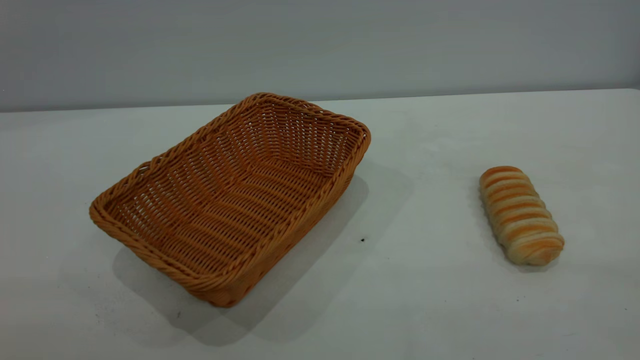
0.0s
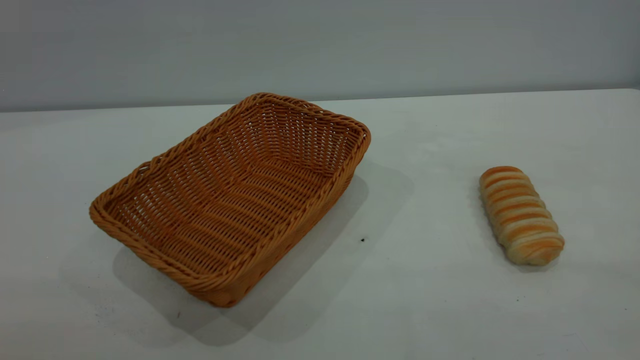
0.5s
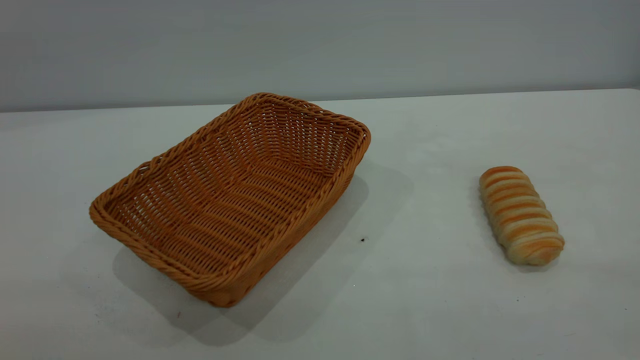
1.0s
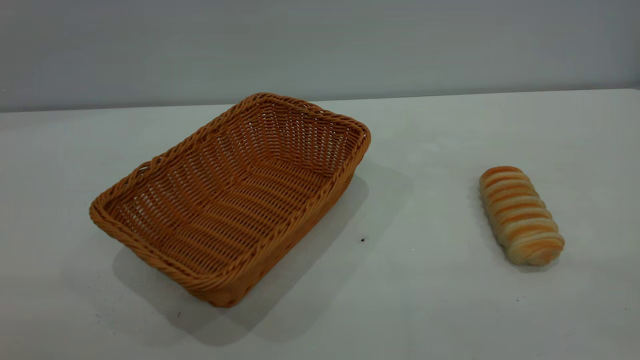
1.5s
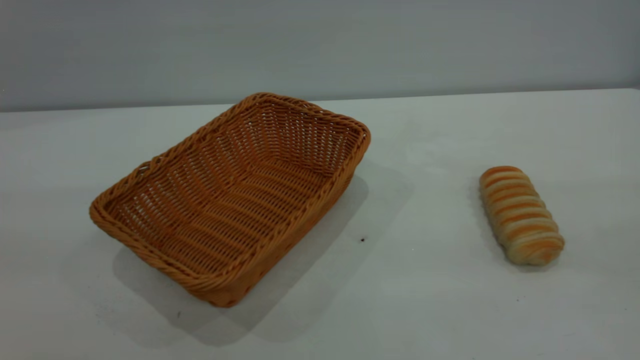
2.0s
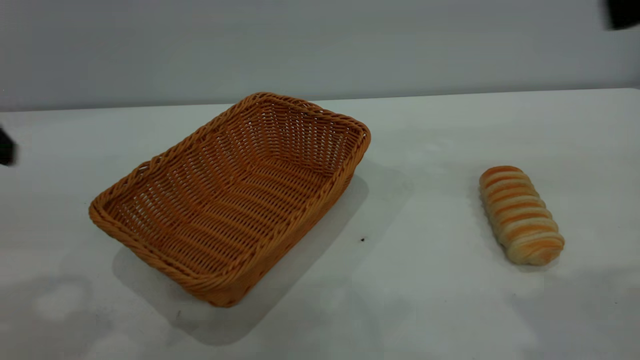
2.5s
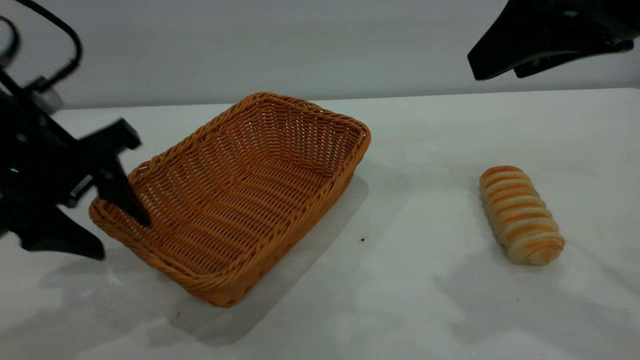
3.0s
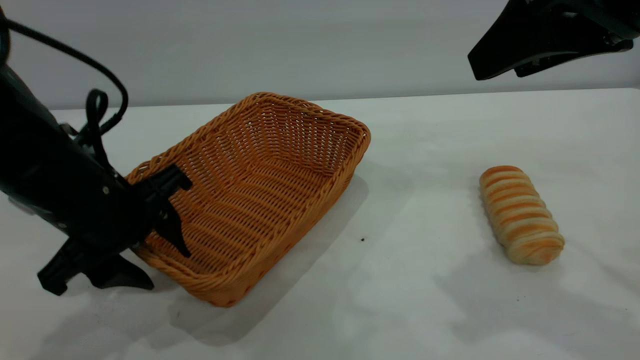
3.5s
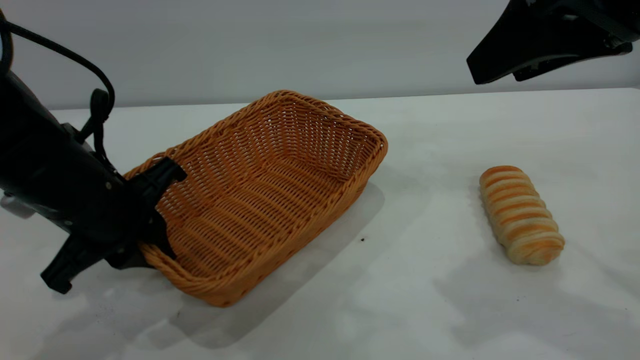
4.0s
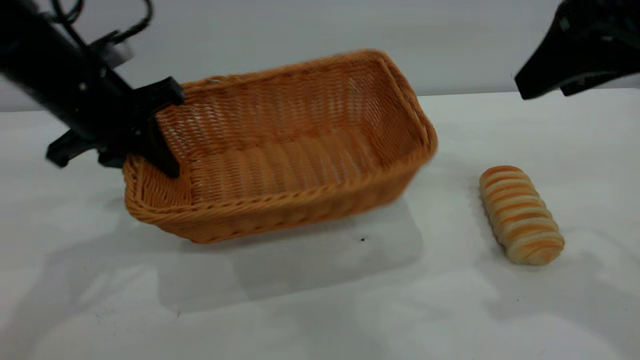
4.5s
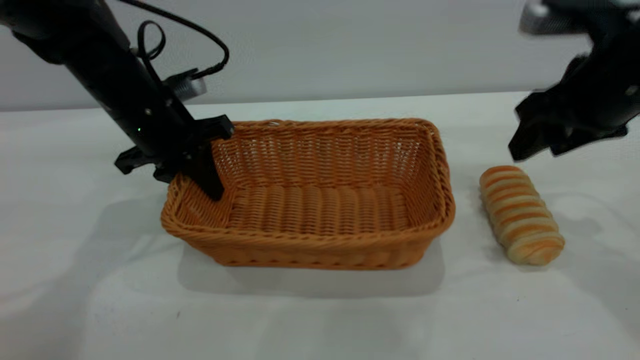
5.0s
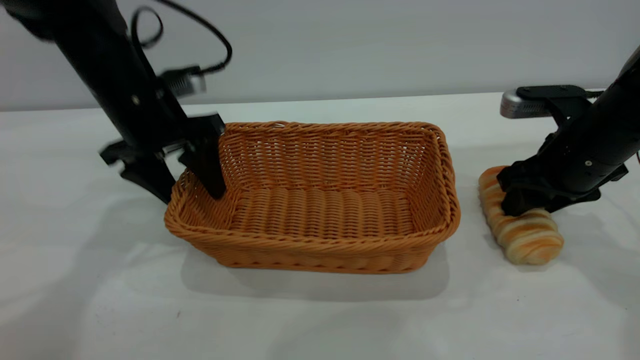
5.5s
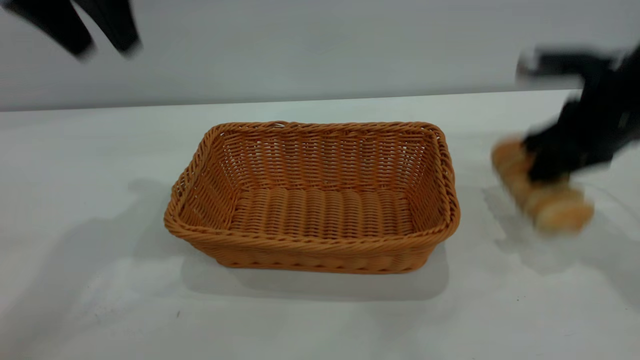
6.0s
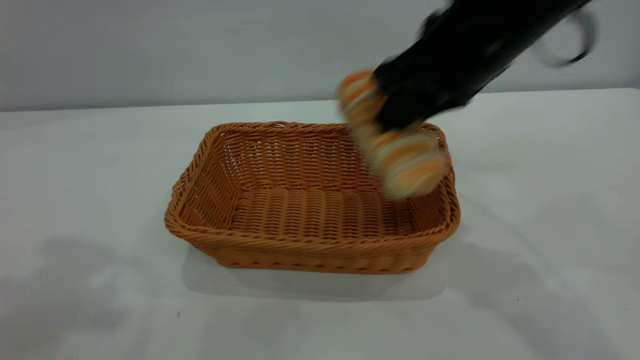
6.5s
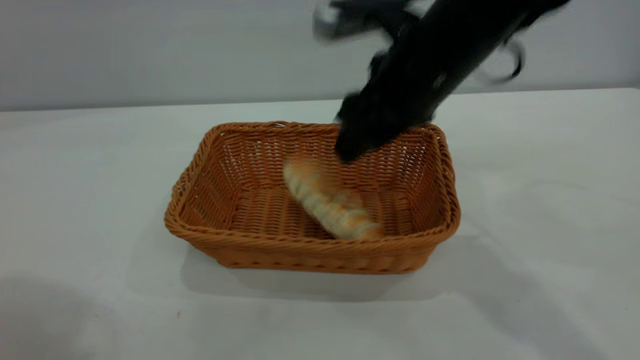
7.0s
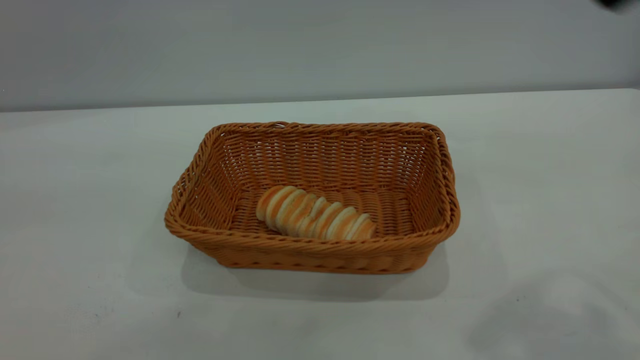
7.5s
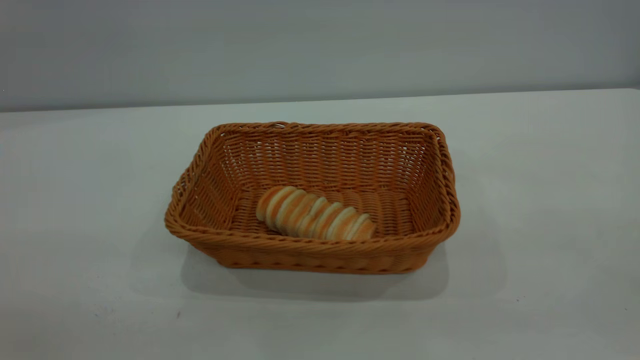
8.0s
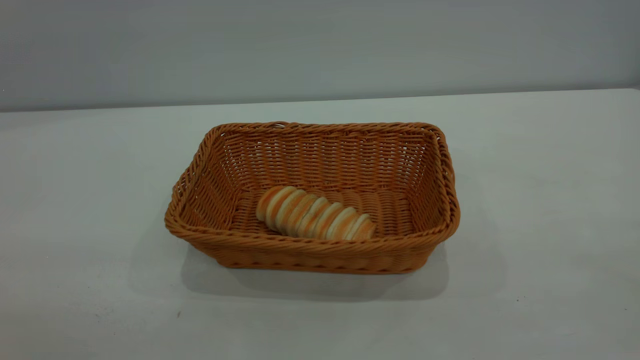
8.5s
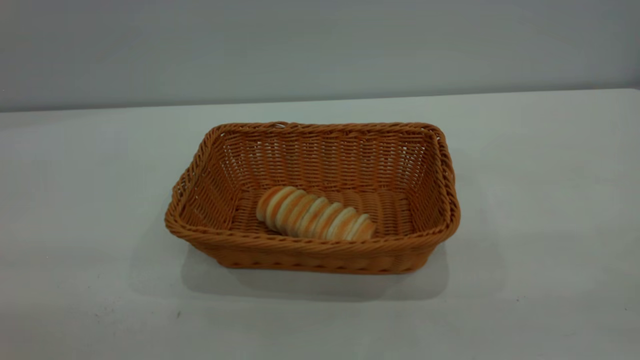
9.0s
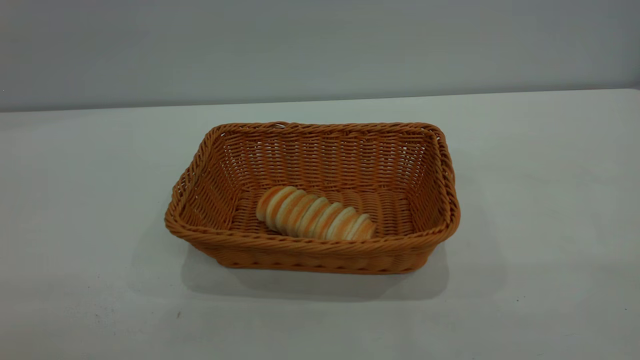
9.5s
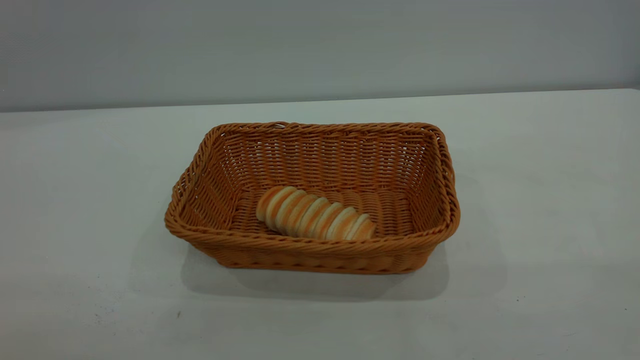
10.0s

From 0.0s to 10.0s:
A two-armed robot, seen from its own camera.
Task of the whole recording: One hand grasps the yellow basket and places it in the middle of the table, while the other hand picks up the long bread and puts it into the yellow basket.
Step, from 0.0s to 5.5s: Move the basket to the center of view.
Step, from 6.5s to 7.0s: place the bread into the basket.
From 2.0s to 4.0s: The left gripper goes roughly 30 cm downward and forward, and closes; the right gripper travels forward and to the left by approximately 20 cm.
From 4.0s to 6.0s: The right gripper heads downward, forward and to the right, covering approximately 20 cm, and closes its fingers. The left gripper moves up and down over approximately 20 cm, changing direction 2 times, and opens.
From 6.0s to 8.0s: The right gripper is displaced backward and upward by about 30 cm, and opens, while the left gripper moves backward, about 30 cm.

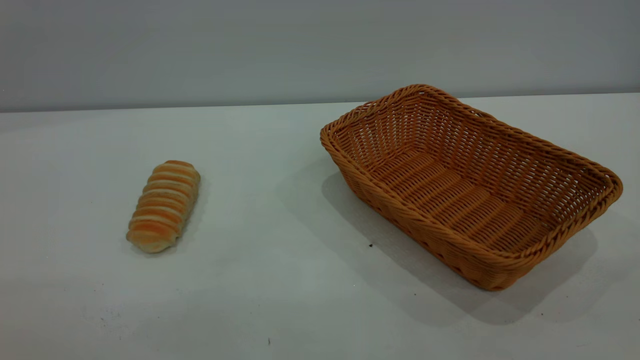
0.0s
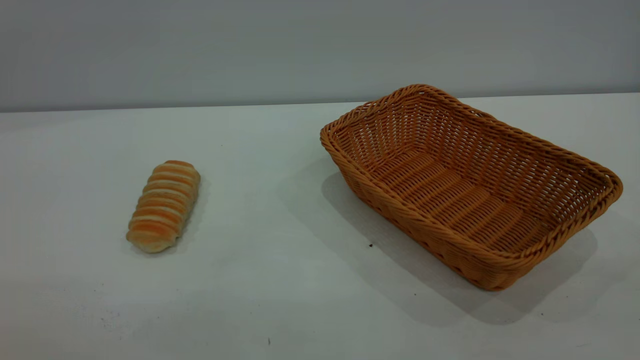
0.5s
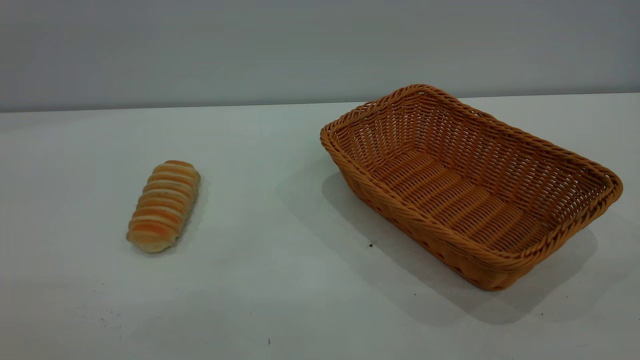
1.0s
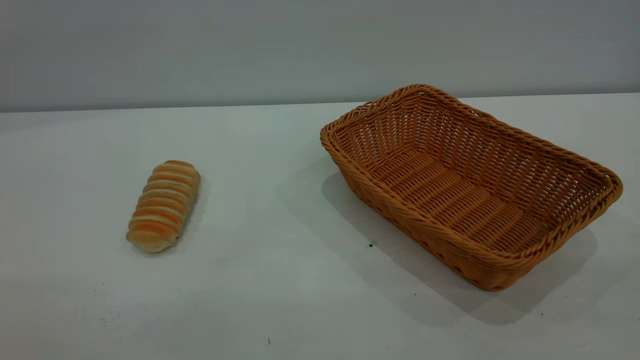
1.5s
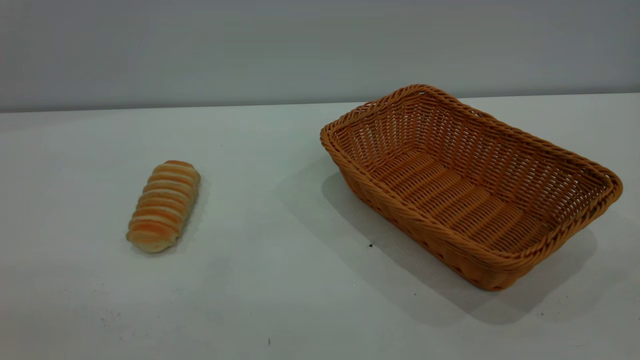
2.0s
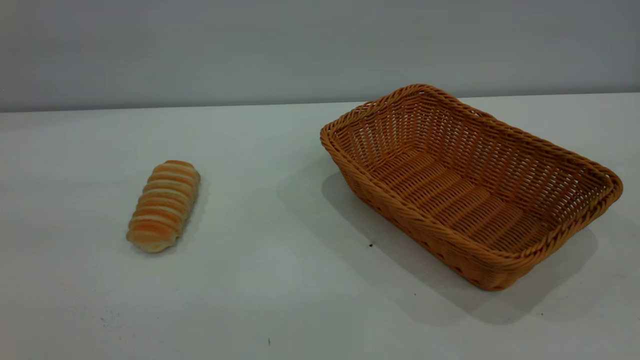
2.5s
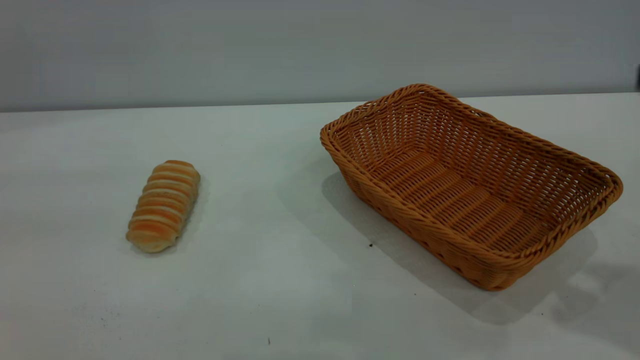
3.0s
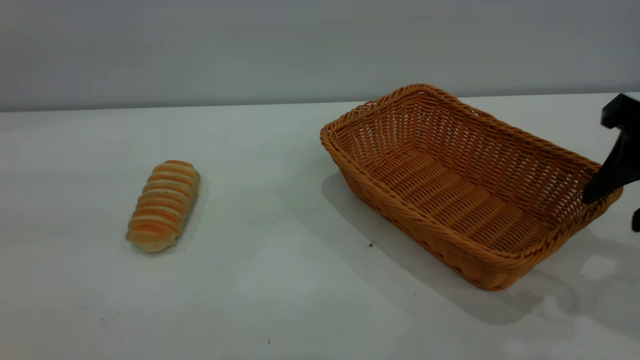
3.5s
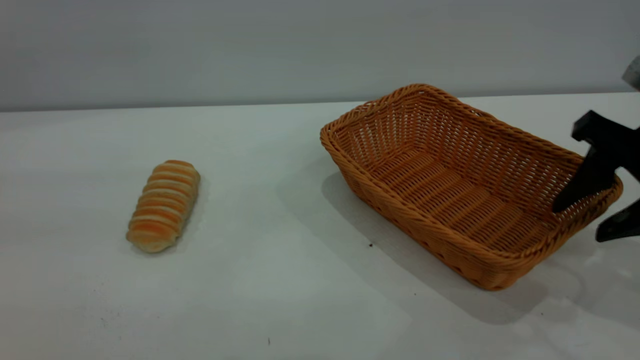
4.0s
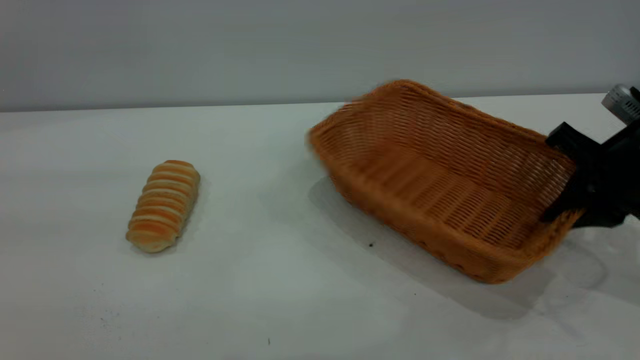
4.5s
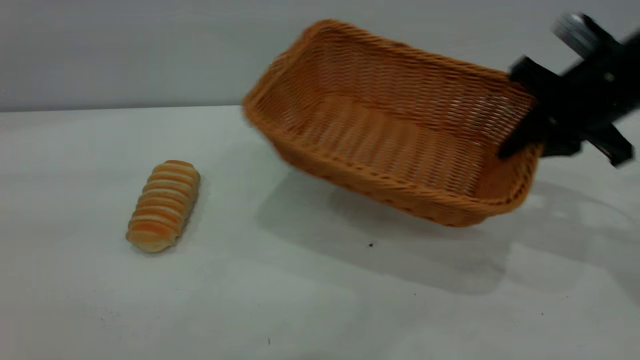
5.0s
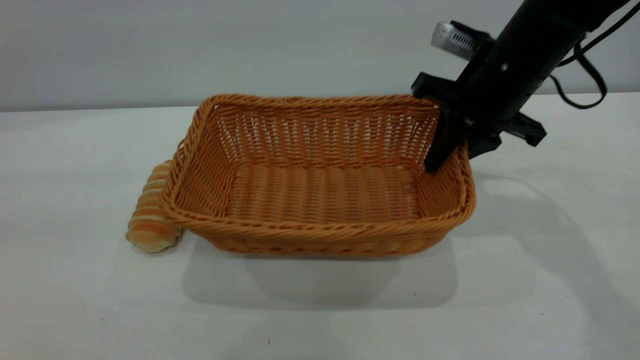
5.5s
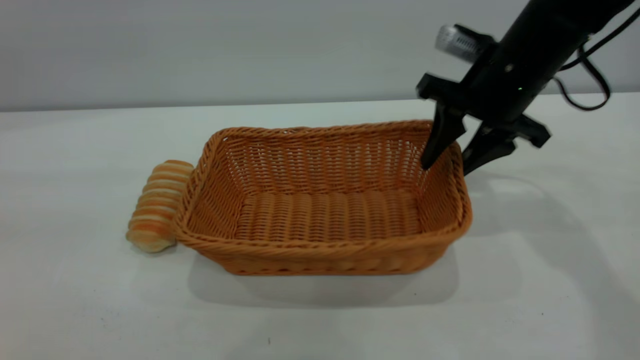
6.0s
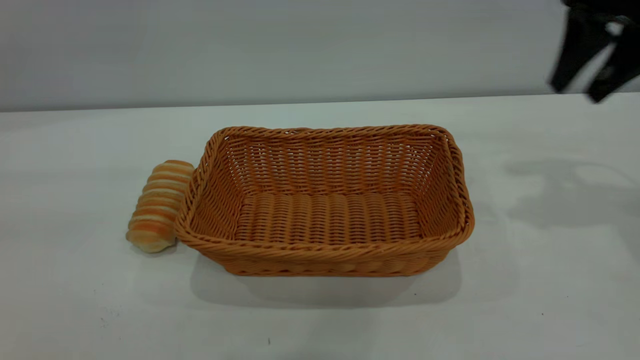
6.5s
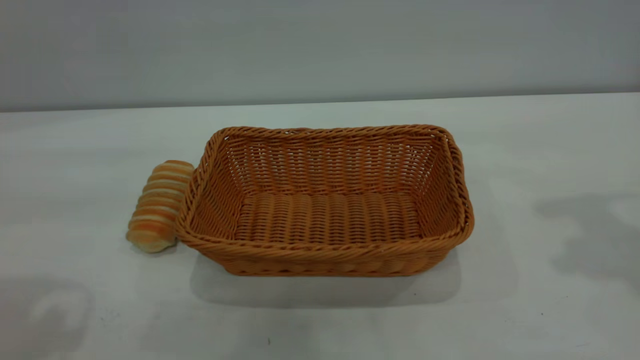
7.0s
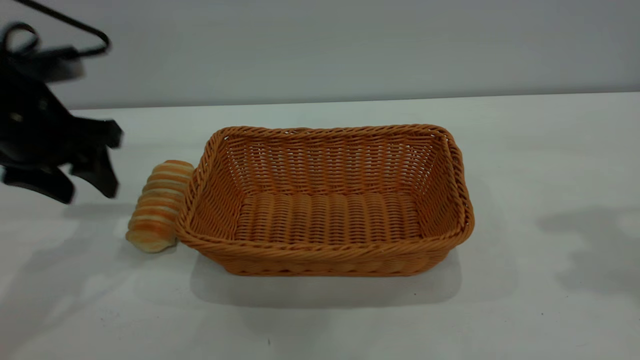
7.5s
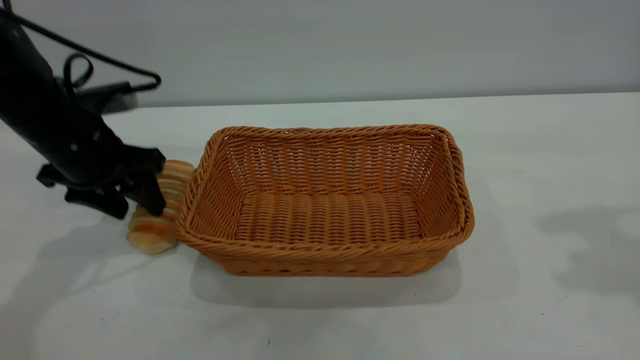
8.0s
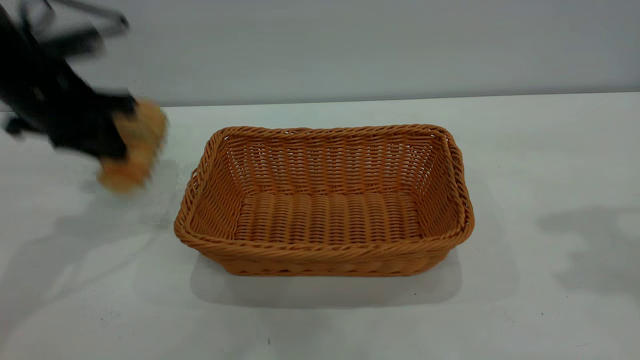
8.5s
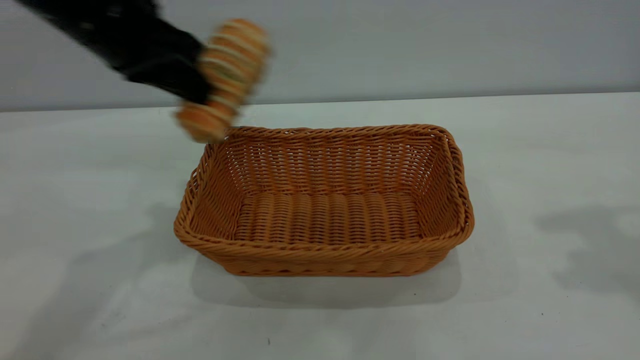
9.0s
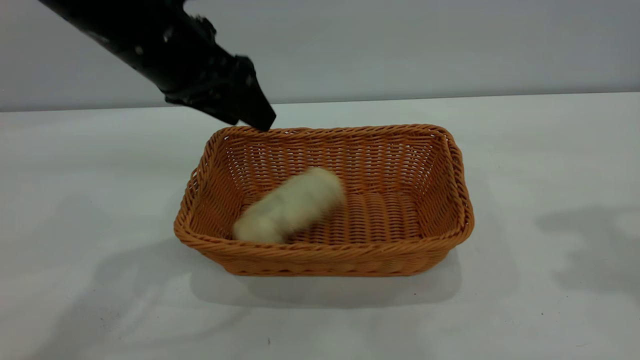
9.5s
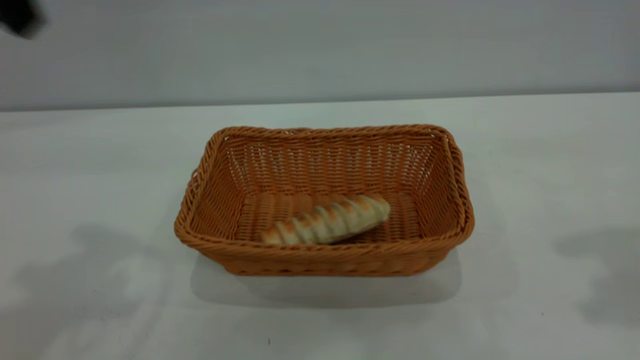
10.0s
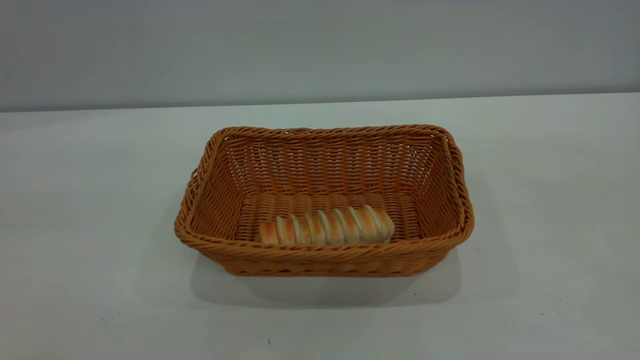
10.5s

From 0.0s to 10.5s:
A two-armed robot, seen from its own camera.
Task of the whole recording: One hand grasps the yellow basket and places it in the middle of the table, while the other hand picks up the long bread and puts it into the yellow basket.
Step, from 0.0s to 6.0s: Move the basket to the center of view.
Step, from 9.0s to 9.5s: place the bread into the basket.
From 2.0s to 4.0s: The right gripper goes some 35 cm forward and downward.
From 4.0s to 6.5s: The right gripper shifts about 15 cm forward and upward, and closes, then opens again.
From 6.5s to 8.5s: The left gripper travels forward and downward by some 30 cm, and closes its fingers. Meanwhile the right gripper moves upward and backward, about 15 cm.
From 8.5s to 10.5s: The right gripper is displaced backward by roughly 20 cm. Meanwhile the left gripper is displaced backward and upward by some 40 cm, and opens up.
